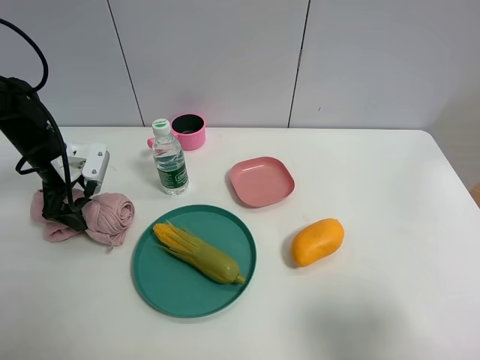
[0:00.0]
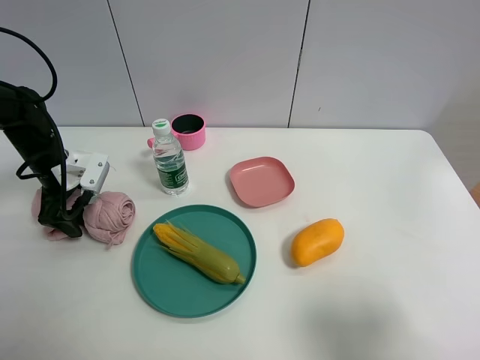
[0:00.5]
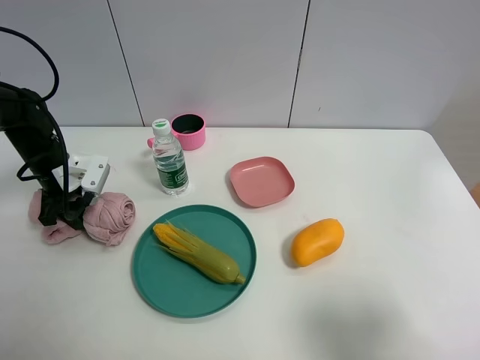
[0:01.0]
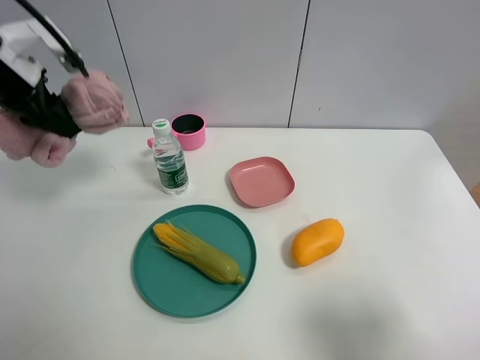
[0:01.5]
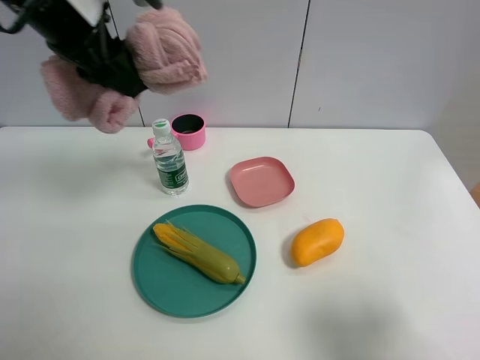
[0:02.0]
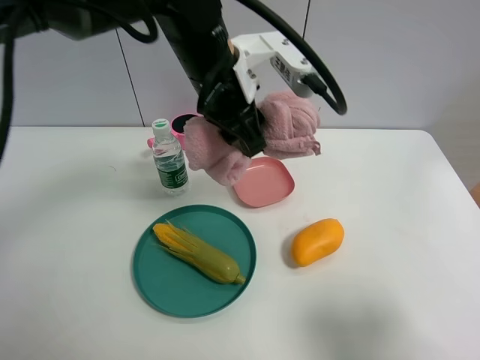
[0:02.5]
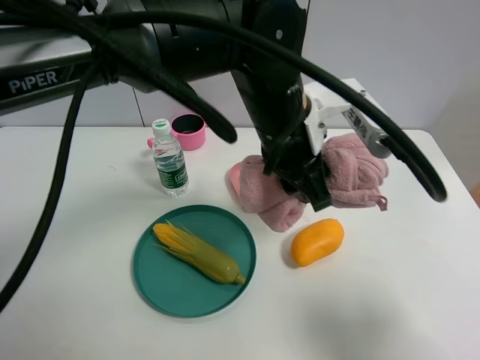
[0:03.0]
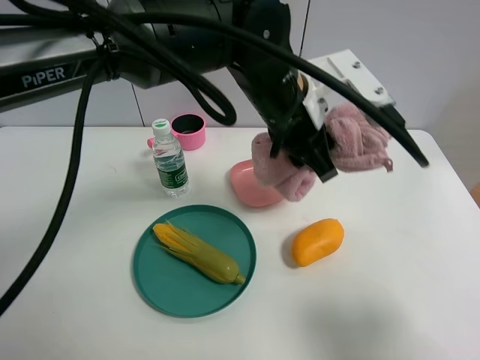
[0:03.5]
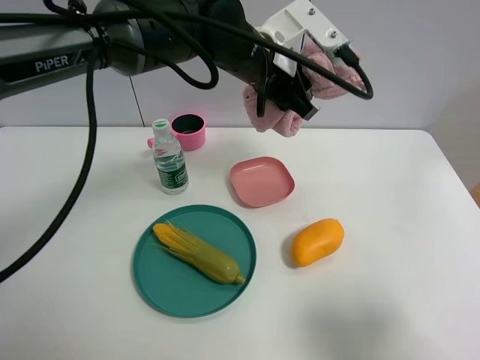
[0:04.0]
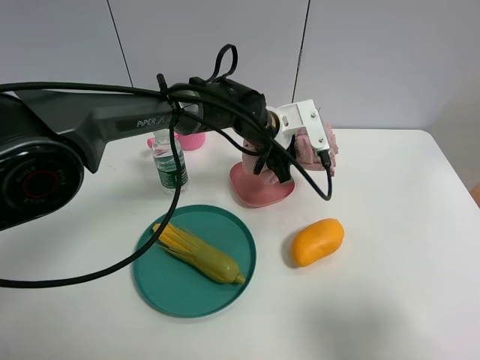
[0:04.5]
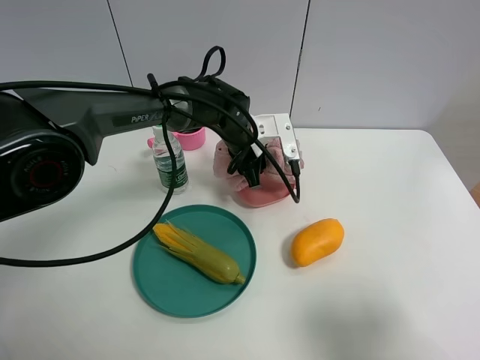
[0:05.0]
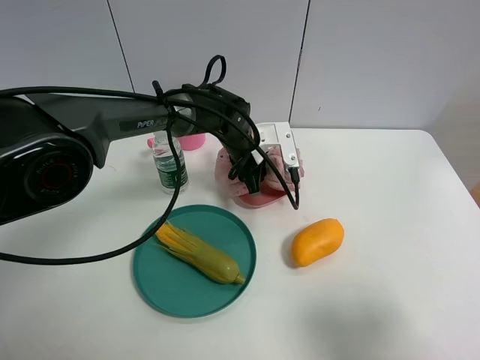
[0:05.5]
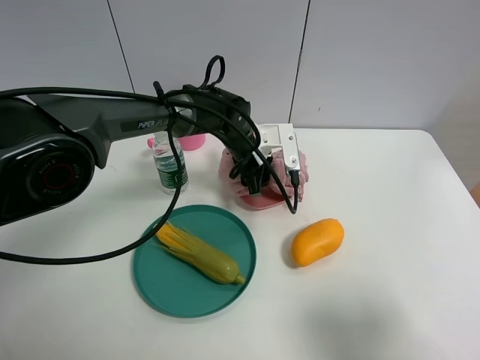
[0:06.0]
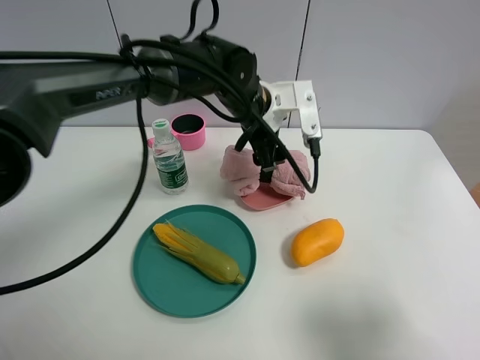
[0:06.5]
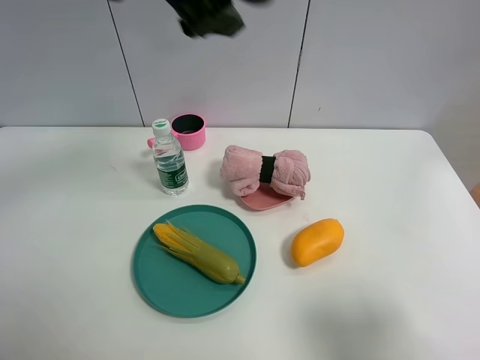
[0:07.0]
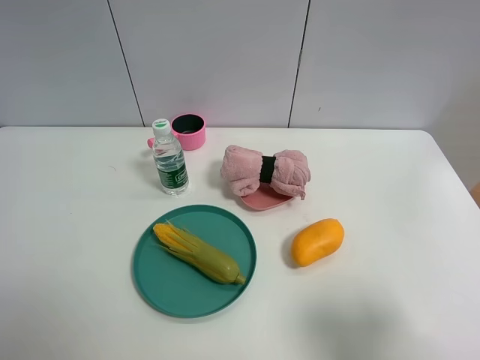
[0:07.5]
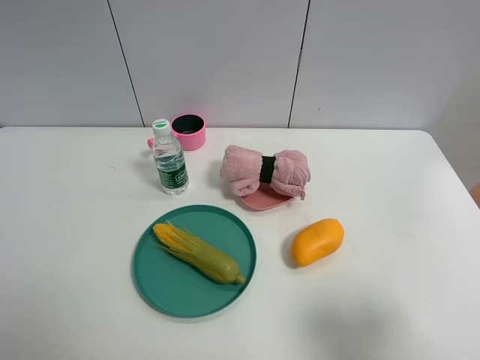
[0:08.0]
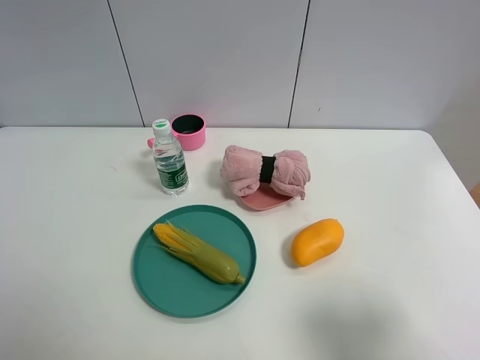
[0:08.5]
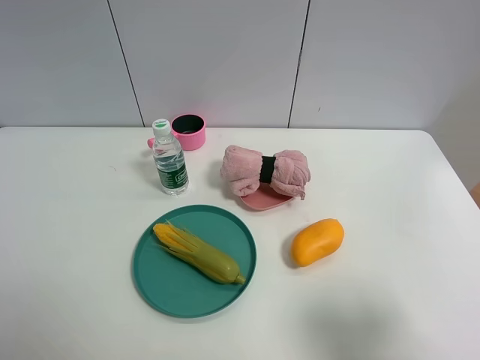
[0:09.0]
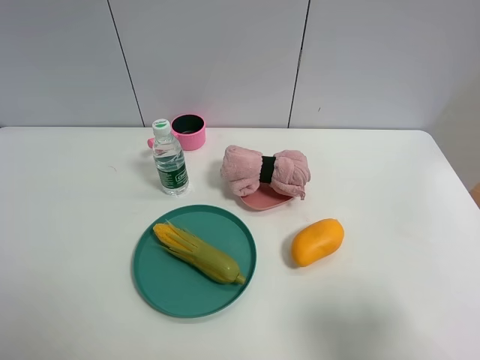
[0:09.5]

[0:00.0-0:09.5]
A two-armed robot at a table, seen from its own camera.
Task of the whole recording: the gripper move the object.
Step, 1.0 to 6.0 s: Place the pink towel on the table with the left gripper.
0.0 to 2.0 s: The left gripper goes about 30 cm upward and to the right, and closes up.
2.0 to 4.0 s: The left gripper heads to the right and downward, covering roughly 20 cm.
4.0 to 5.5 s: The left gripper is displaced downward by roughly 15 cm.
5.5 to 7.5 s: The left gripper heads upward, to the left and backward, covering about 60 cm, and opens up.

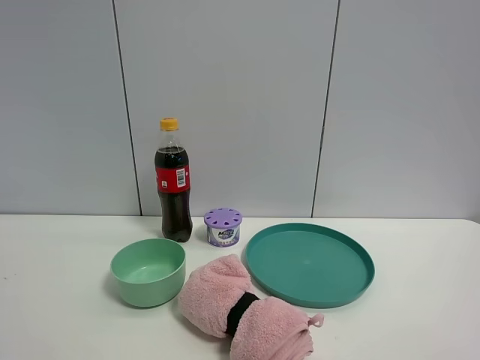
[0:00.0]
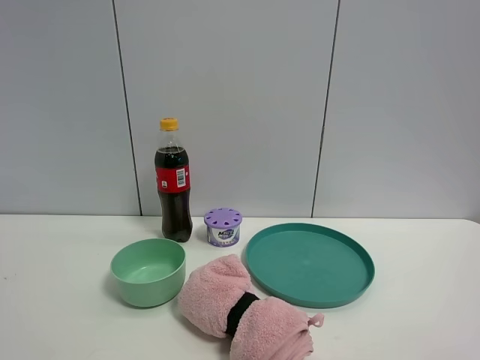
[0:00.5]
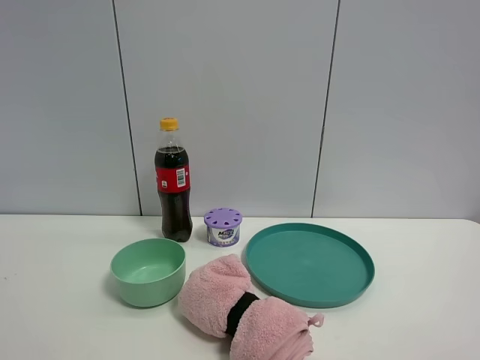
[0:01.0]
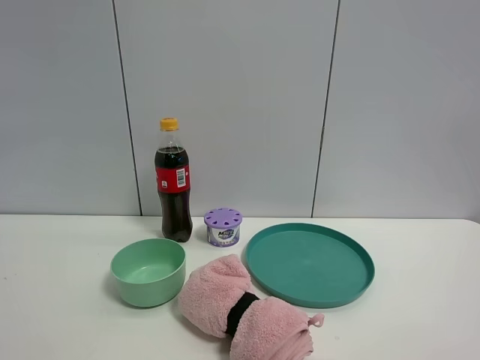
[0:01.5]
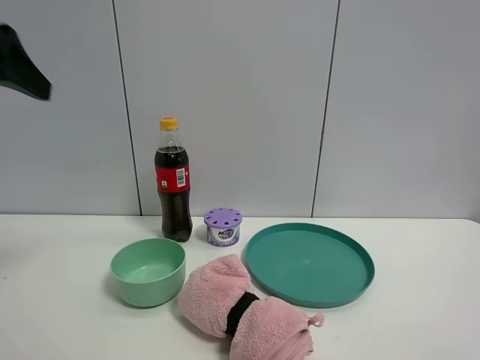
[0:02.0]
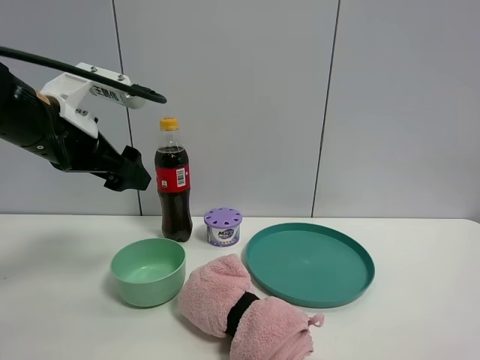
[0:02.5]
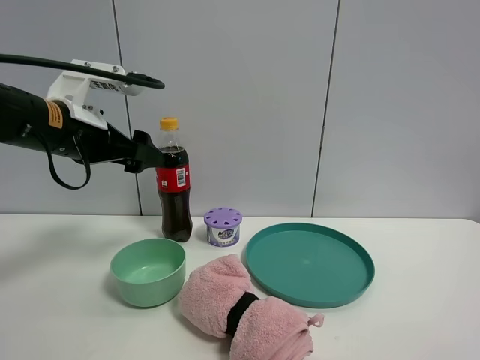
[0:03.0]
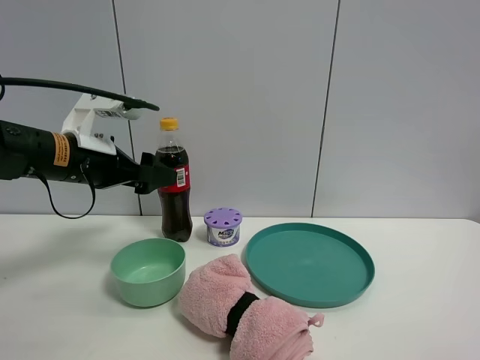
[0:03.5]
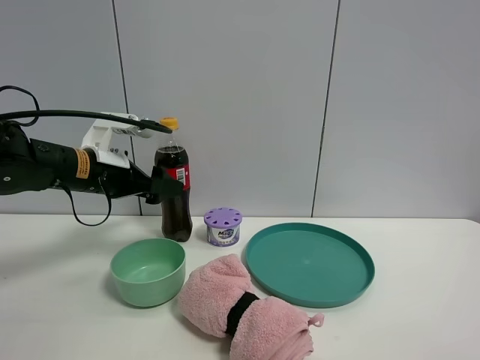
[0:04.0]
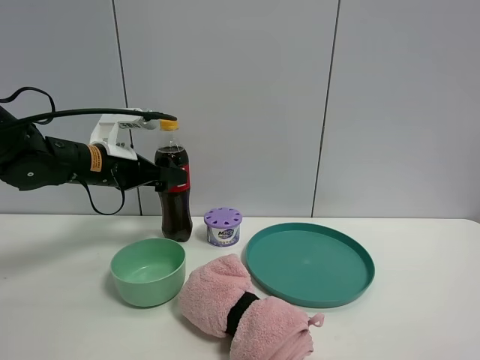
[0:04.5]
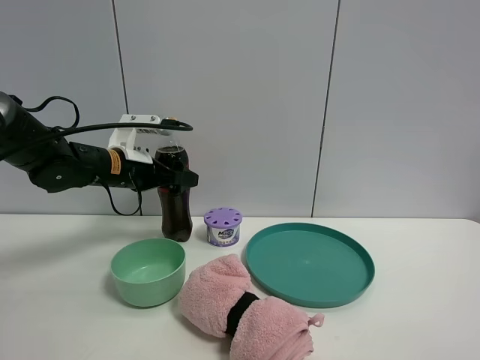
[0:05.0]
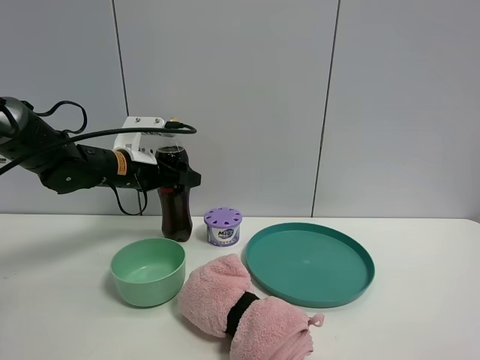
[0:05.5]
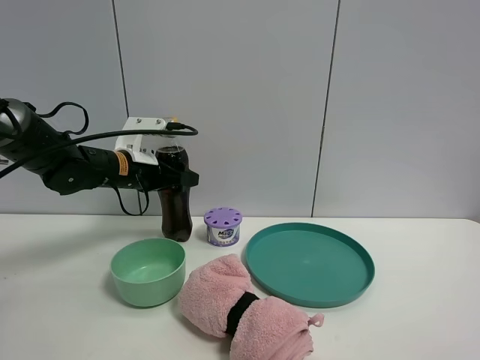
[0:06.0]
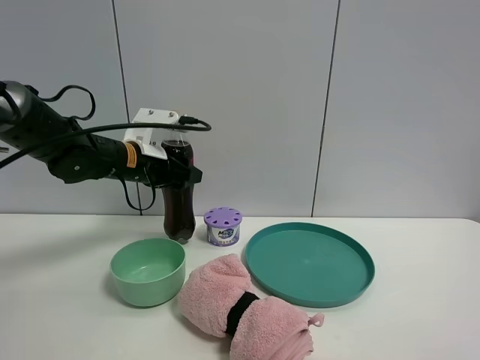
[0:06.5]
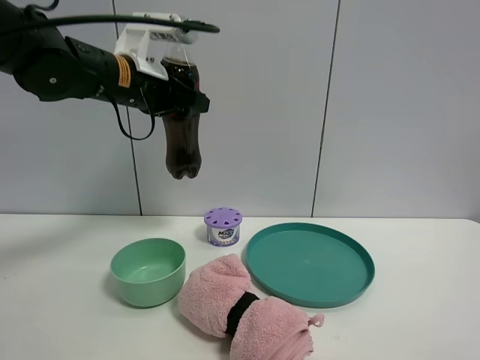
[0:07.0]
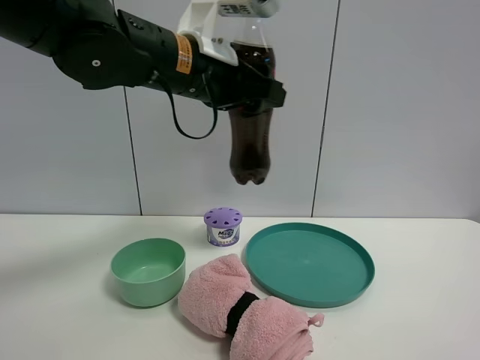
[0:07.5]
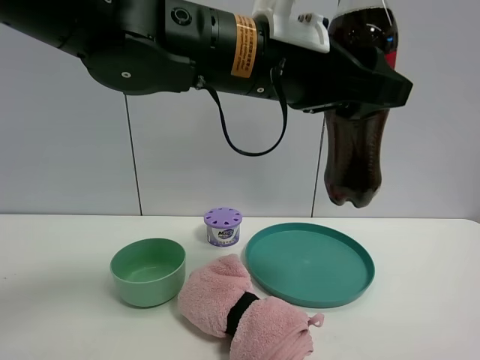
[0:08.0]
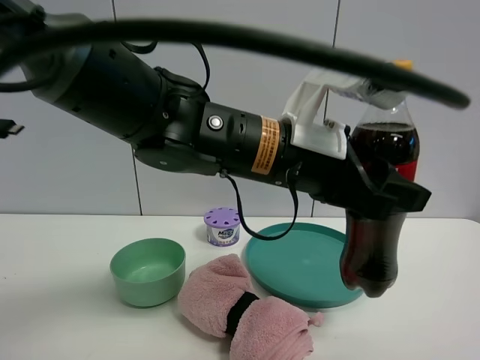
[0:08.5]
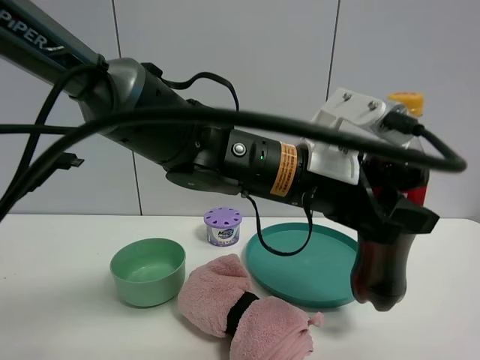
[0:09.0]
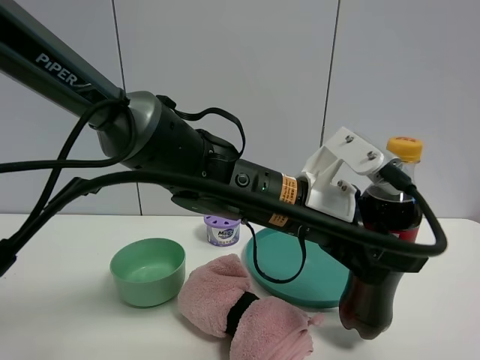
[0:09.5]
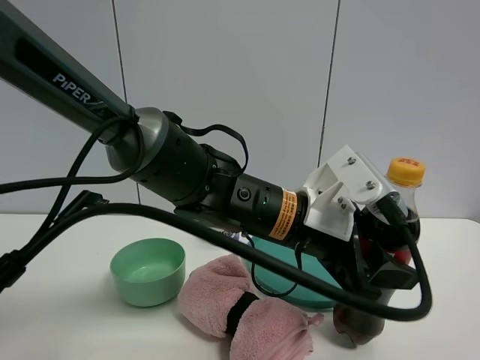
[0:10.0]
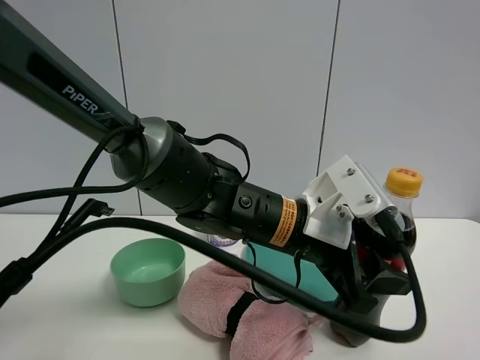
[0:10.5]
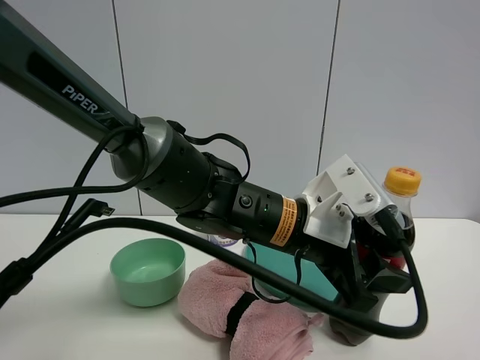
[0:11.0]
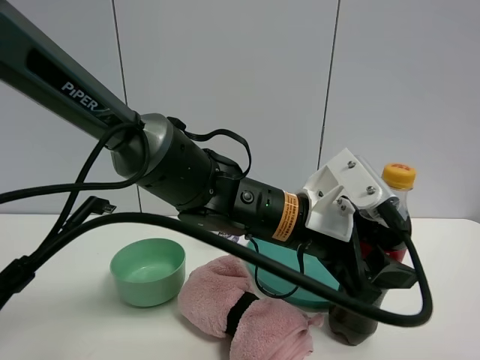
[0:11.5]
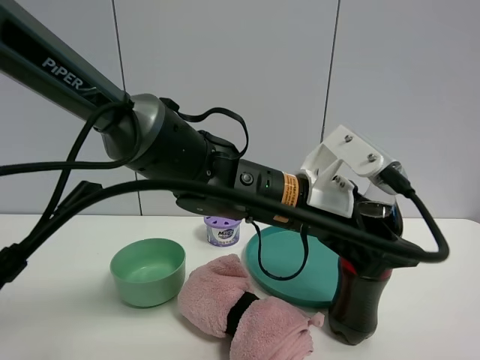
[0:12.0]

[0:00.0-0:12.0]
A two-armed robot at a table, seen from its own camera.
Task of the whole recording: the gripper move the object.
Step, 0.0 to 6.0 s: Grasp the coke with the left gripper.
0.0 to 2.0 s: The left gripper is displaced forward by approximately 25 cm.
2.0 to 4.0 s: The left gripper goes about 25 cm downward, forward and to the right.
4.0 to 6.0 s: The left gripper heads forward, covering about 5 cm, and closes its fingers.
6.0 to 8.0 s: The left gripper moves to the right, backward and upward, some 30 cm, and closes up.
8.0 to 10.0 s: The left gripper travels downward by roughly 15 cm.
10.0 to 12.0 s: The left gripper opens up.

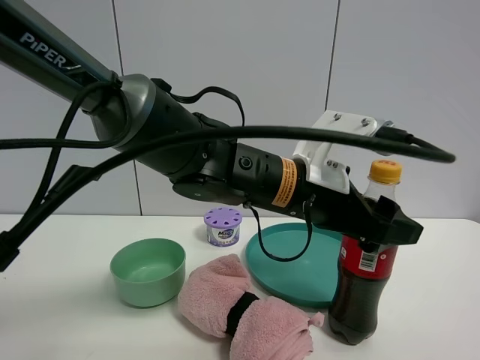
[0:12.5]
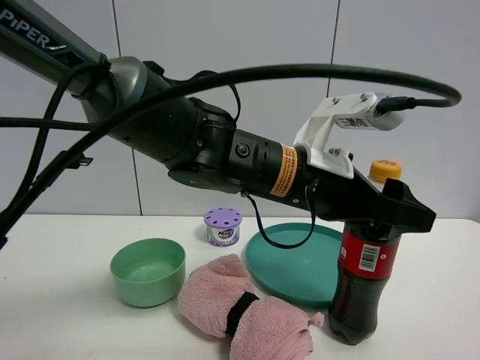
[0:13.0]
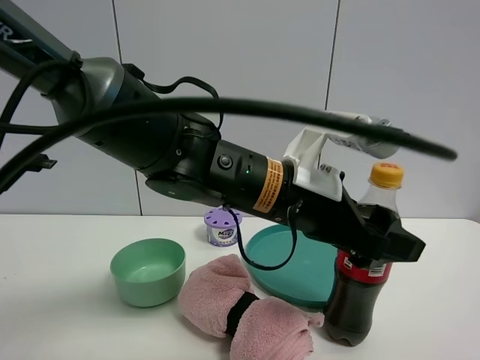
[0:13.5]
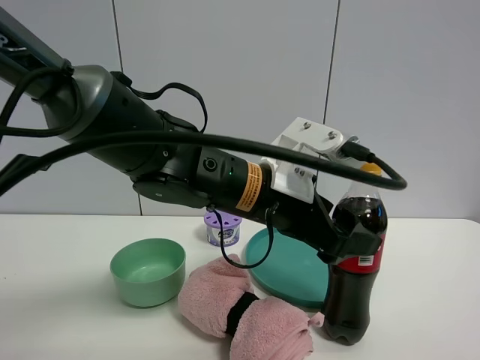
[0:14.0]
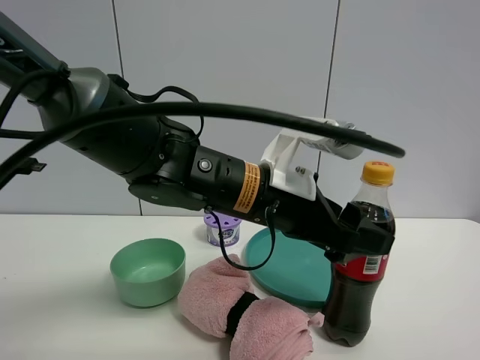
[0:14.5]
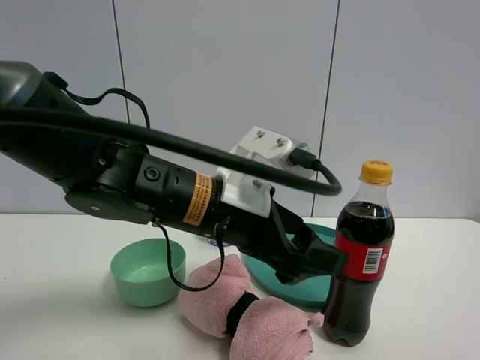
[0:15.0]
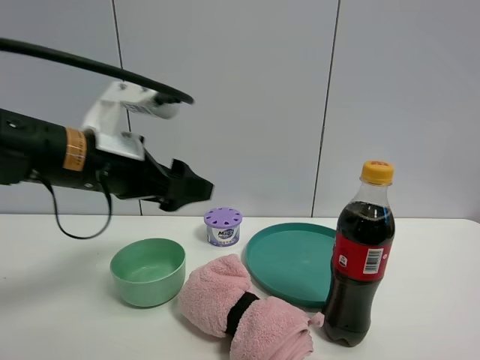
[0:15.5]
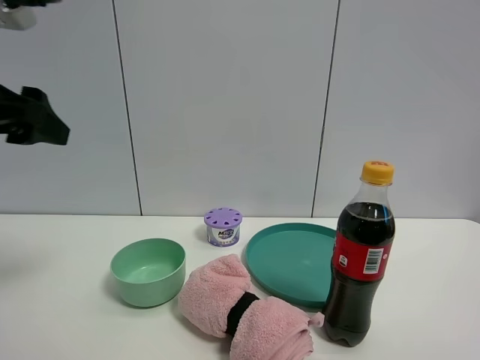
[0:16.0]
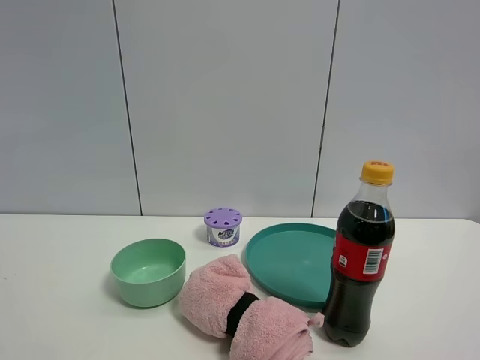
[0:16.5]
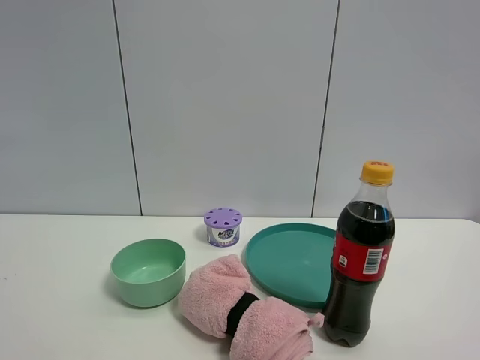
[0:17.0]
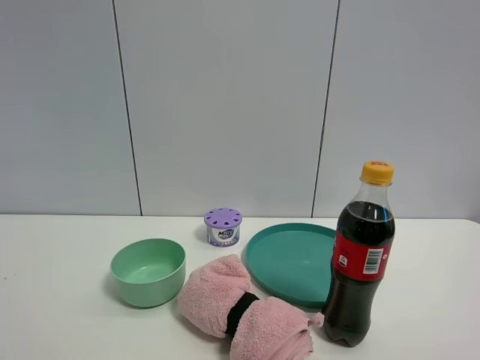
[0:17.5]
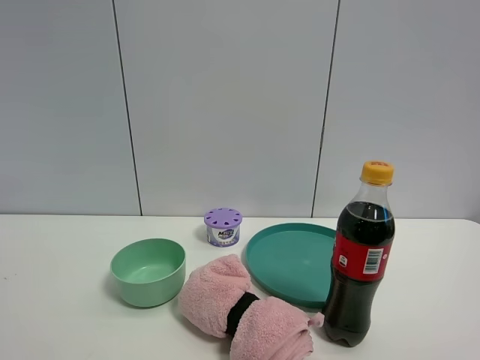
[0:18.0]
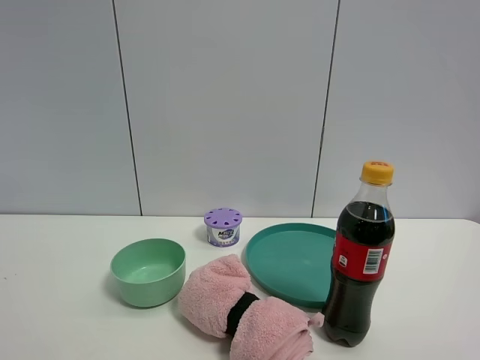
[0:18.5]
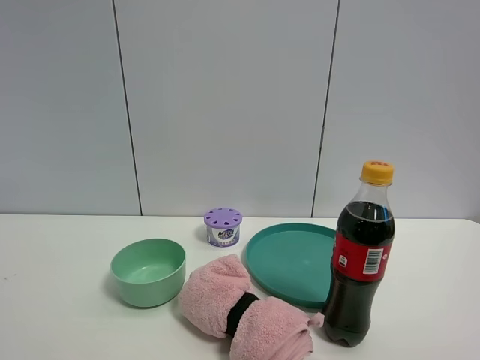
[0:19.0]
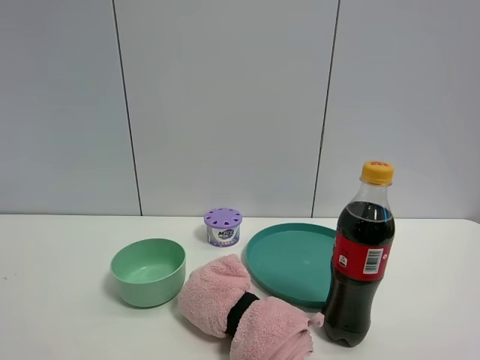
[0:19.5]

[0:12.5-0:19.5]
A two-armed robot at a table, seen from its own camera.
Task of the whole recording: the gripper move the object.
14.5 to 16.0 s: The left gripper travels to the left and upward by approximately 30 cm.
16.0 to 17.5 s: The left gripper shifts about 20 cm backward.
